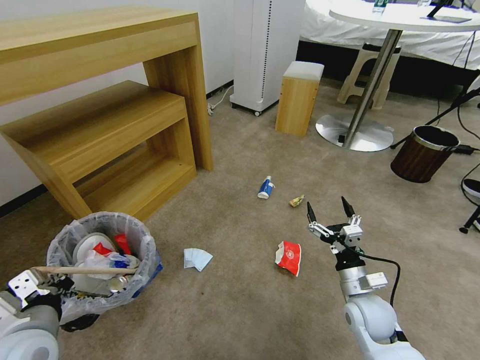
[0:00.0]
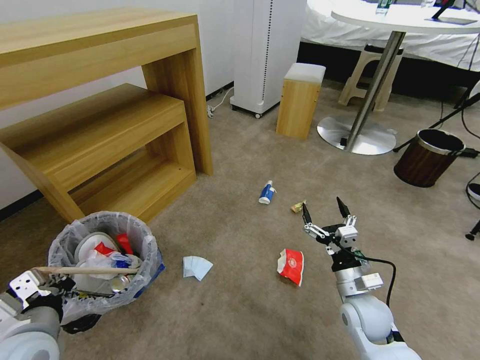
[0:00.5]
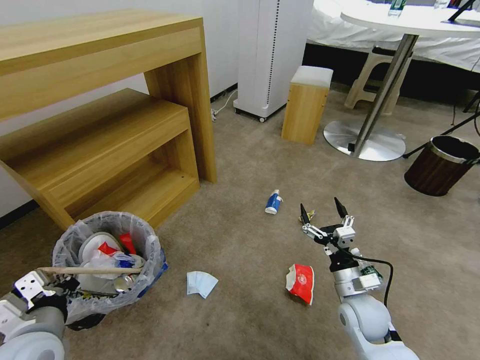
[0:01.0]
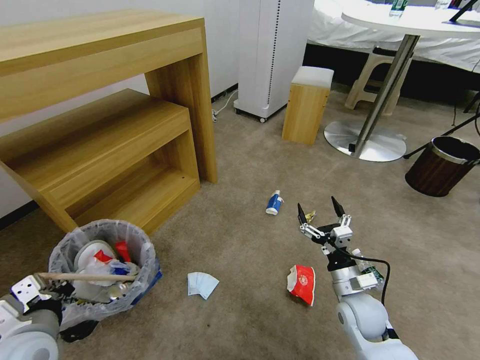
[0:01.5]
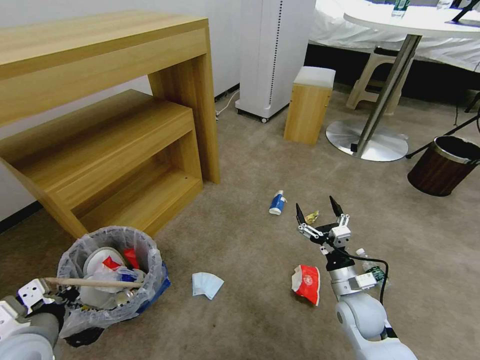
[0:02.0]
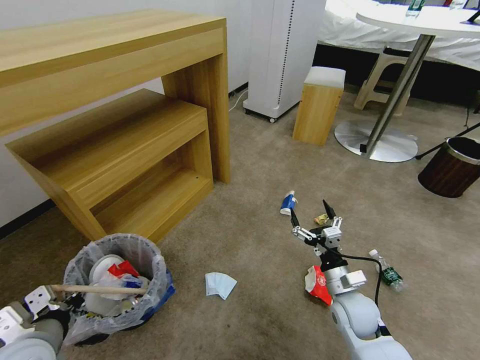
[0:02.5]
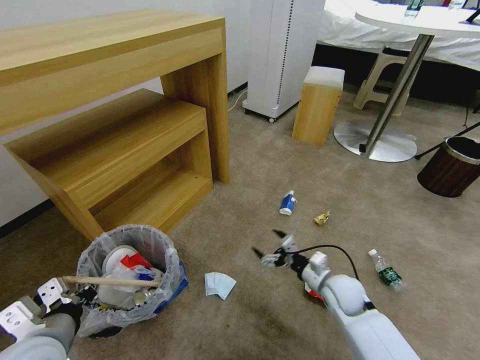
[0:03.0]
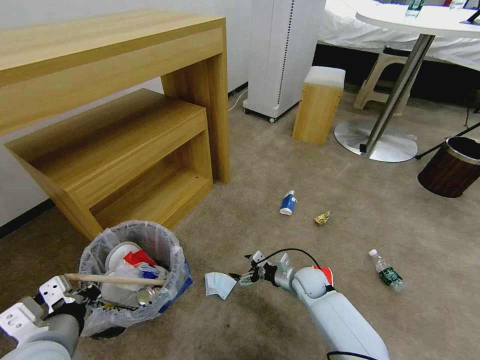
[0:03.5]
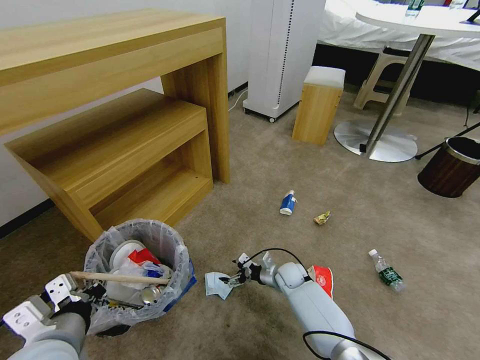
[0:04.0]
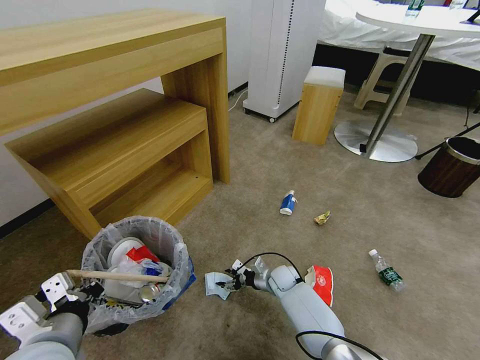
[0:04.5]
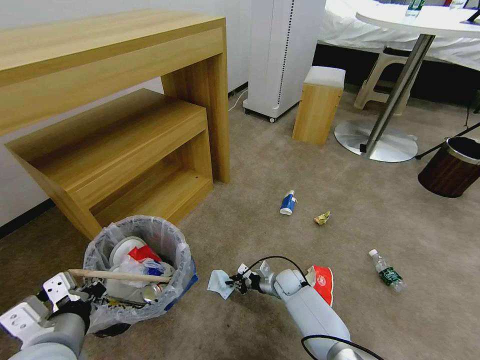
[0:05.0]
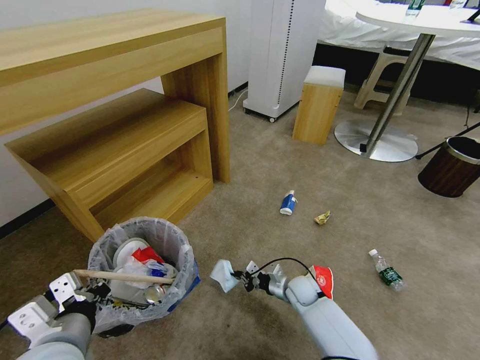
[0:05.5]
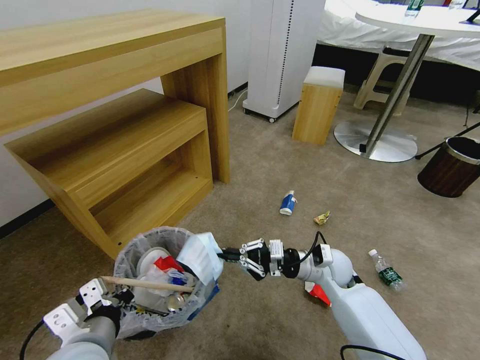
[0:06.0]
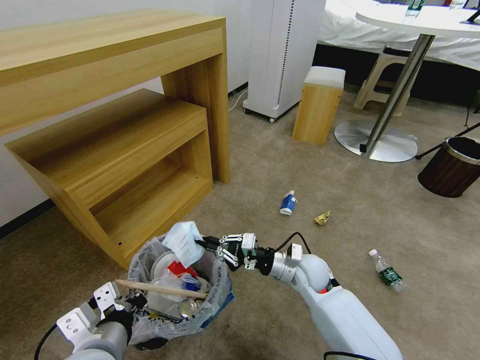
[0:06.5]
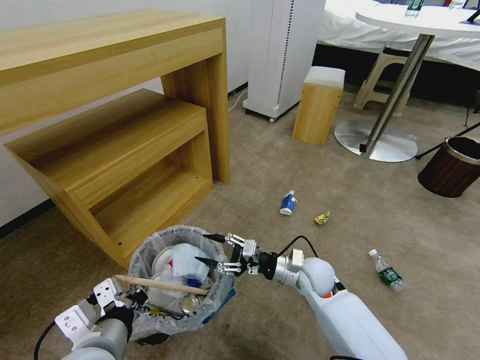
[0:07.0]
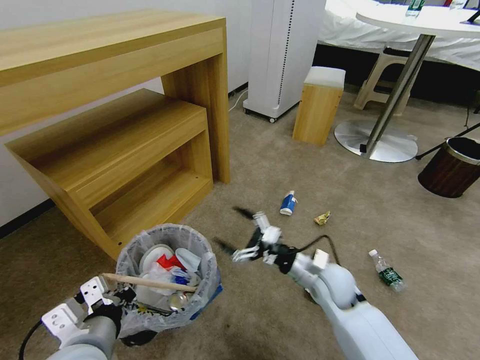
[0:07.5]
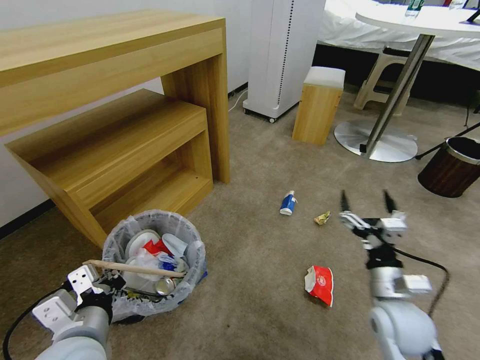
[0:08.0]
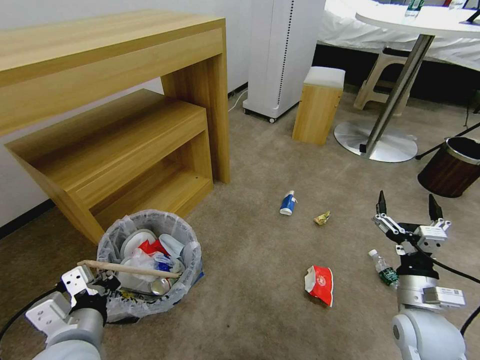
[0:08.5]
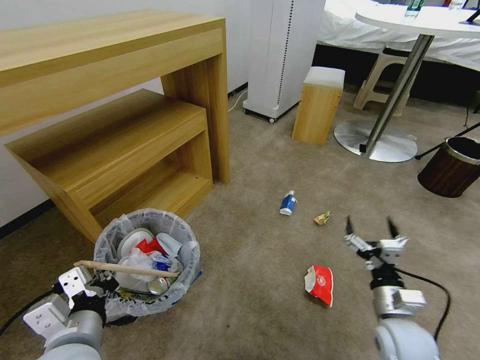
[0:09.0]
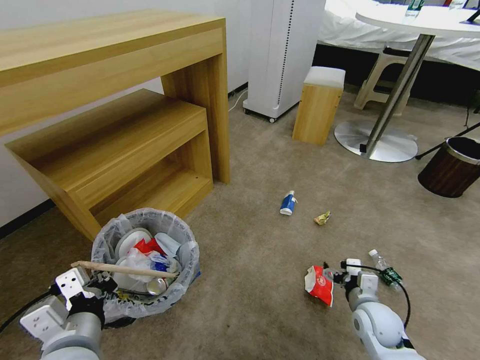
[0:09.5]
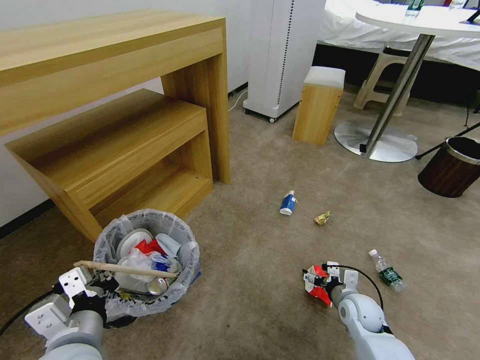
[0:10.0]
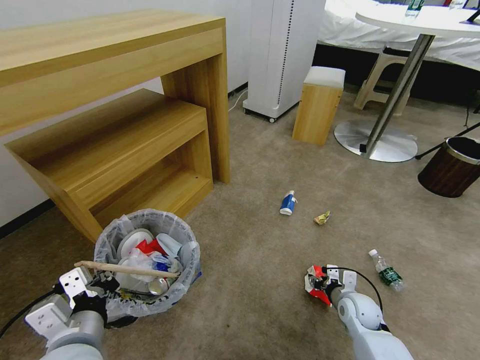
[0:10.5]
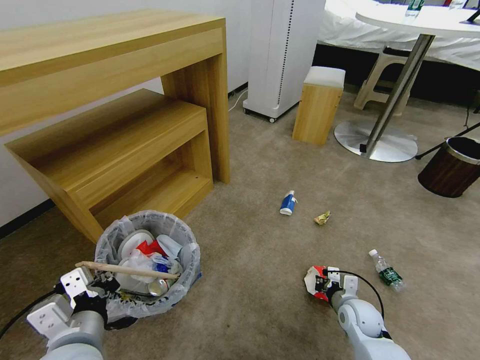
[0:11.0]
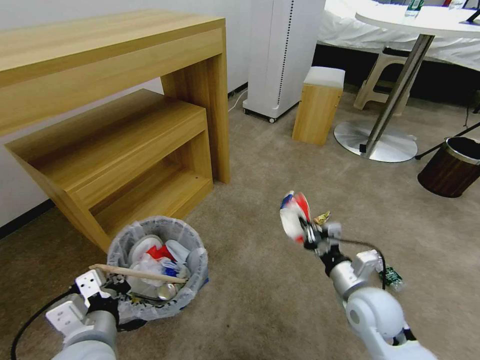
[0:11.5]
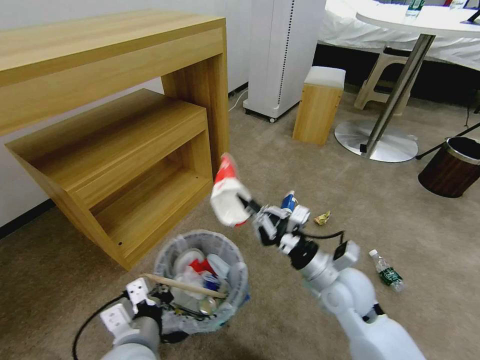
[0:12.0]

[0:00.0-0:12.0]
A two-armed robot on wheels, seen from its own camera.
Task of the whole recording: Pick up the trash bin and place the garbage on the floor into it.
0:02.0 to 0:04.0: The right gripper heads forward, downward and to the left, covering roughly 25 cm; the left gripper heads to the right, covering roughly 5 cm.
0:04.0 to 0:06.0: The right gripper moves upward, about 20 cm, and closes.
0:06.0 to 0:08.0: The right gripper heads backward and to the right, covering roughly 15 cm, and opens its fingers.
0:08.0 to 0:10.0: The right gripper moves downward and forward, approximately 15 cm.
0:10.0 to 0:12.0: The right gripper travels upward and to the left by about 20 cm, and closes up; the left gripper is displaced to the right by roughly 5 cm.

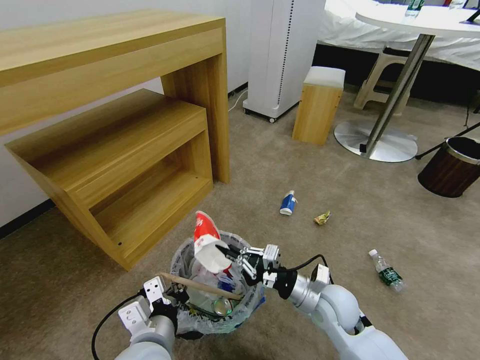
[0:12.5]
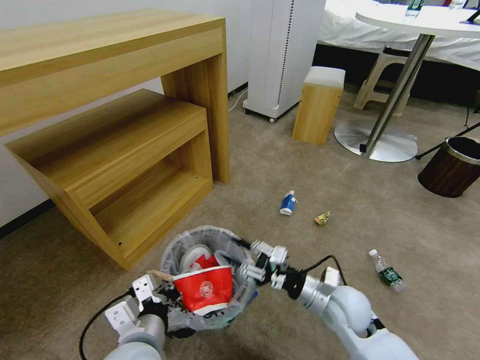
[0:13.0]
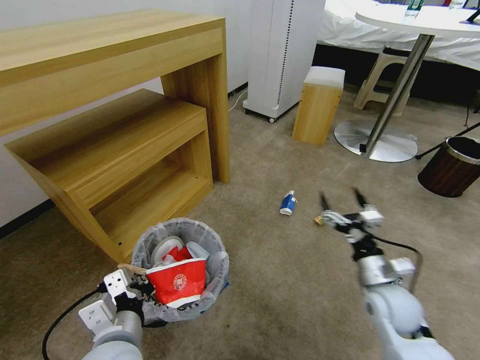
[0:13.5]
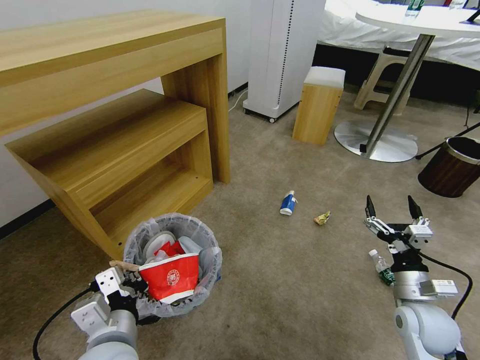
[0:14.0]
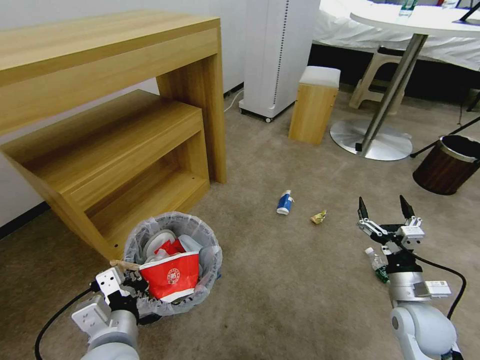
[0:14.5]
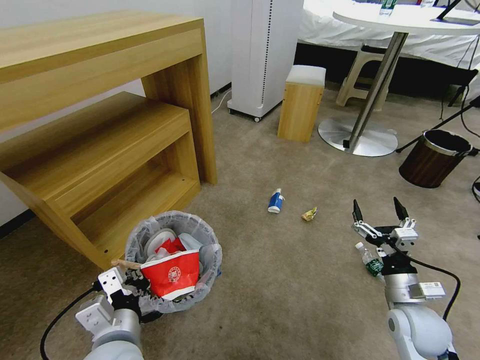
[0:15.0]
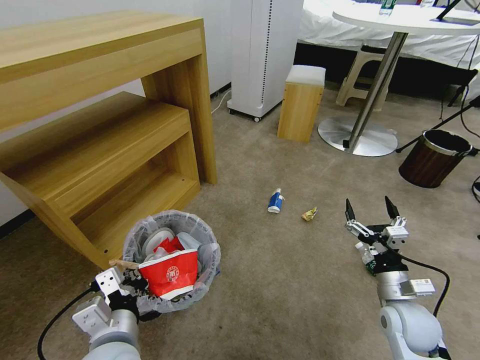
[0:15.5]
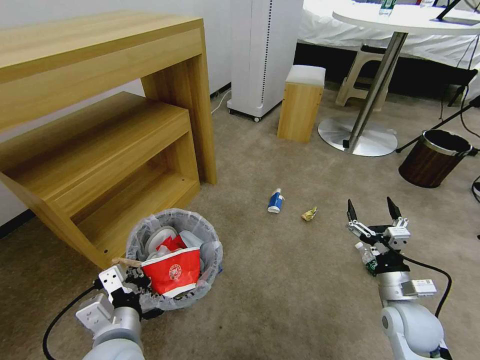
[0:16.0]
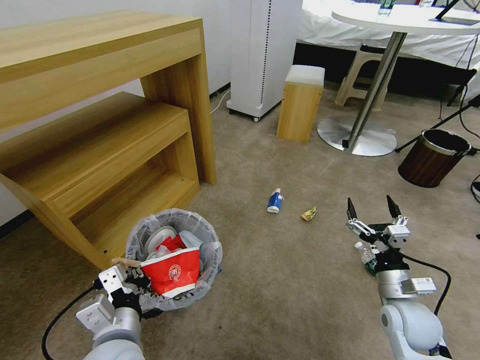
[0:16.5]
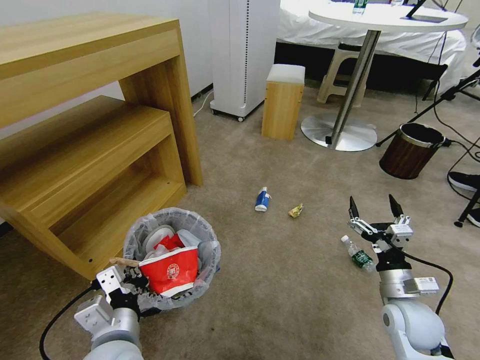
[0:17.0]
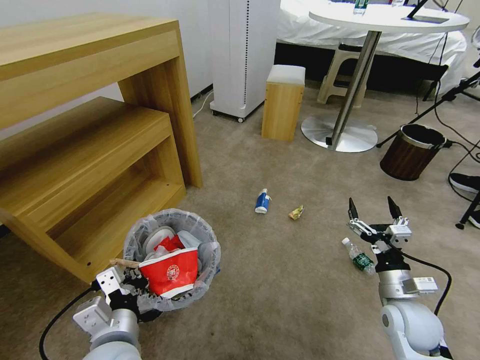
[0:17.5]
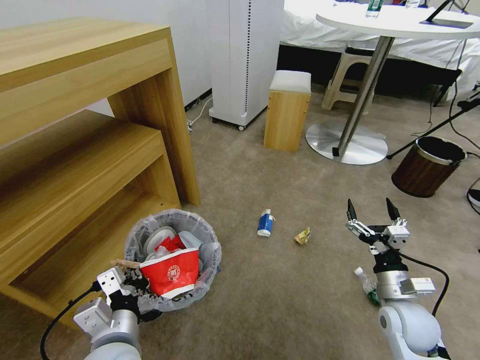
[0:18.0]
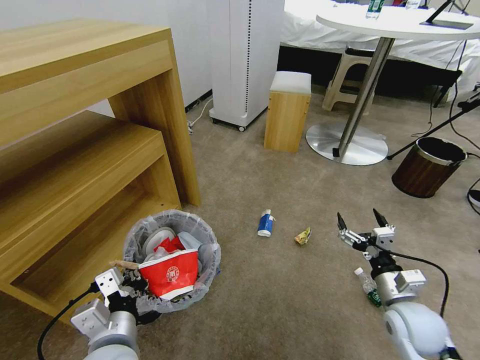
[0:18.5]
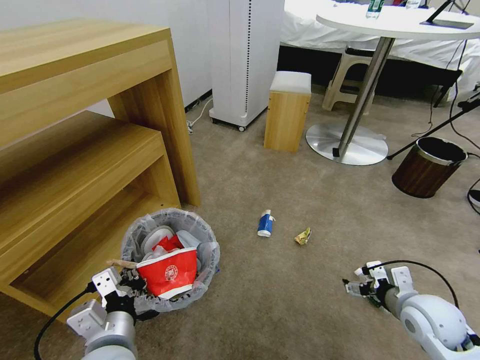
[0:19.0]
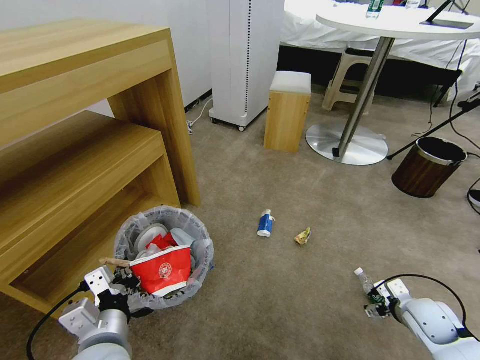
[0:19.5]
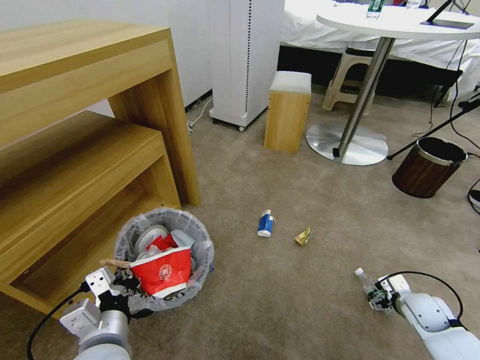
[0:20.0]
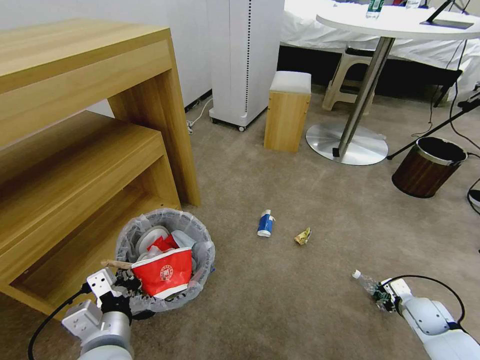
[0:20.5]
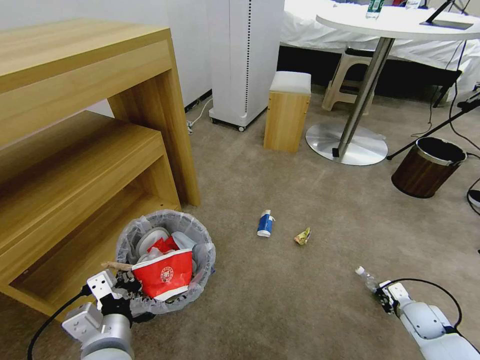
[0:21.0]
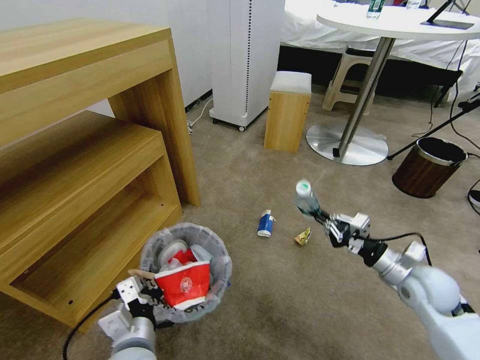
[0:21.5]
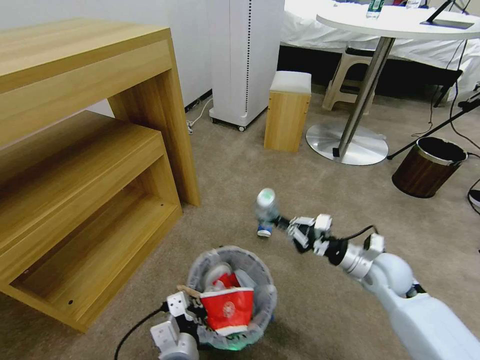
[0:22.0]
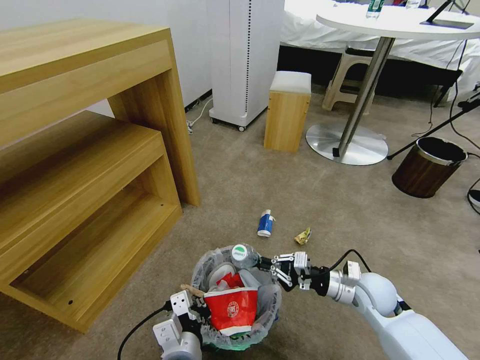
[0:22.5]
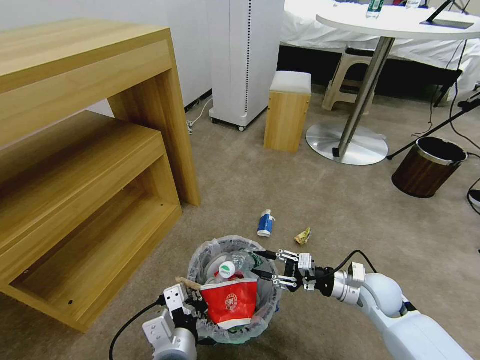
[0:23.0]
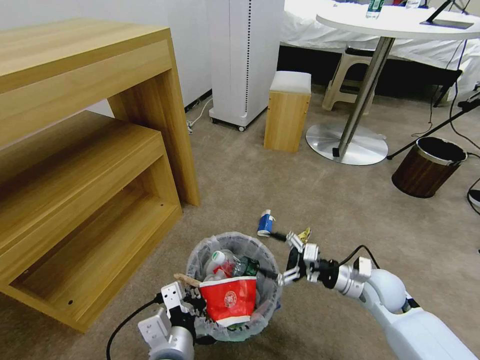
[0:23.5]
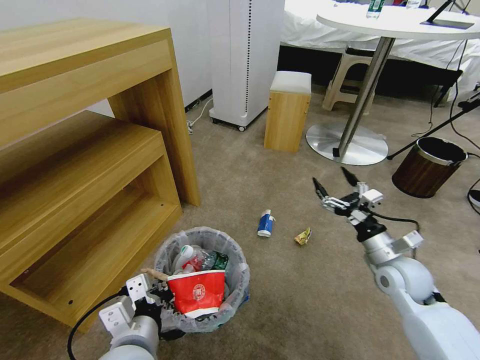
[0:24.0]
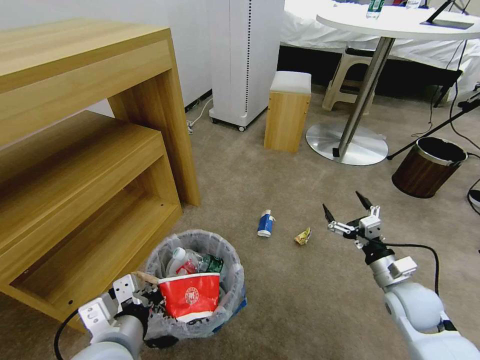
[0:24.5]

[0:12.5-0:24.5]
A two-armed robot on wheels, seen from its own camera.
Task of the whole recording: Pick up the trash bin and place the garbage on the floor into it.
0:12.5 to 0:14.5: The right gripper heads to the right, covering roughly 15 cm, and opens.
0:18.5 to 0:20.5: The right gripper travels to the right and downward by roughly 20 cm.
0:20.5 to 0:22.5: The left gripper travels to the right by approximately 10 cm, while the right gripper heads to the left and upward, covering some 20 cm, and closes up.
0:22.5 to 0:24.5: The right gripper goes about 5 cm to the right, and opens its fingers, while the left gripper travels to the left and upward by about 15 cm.

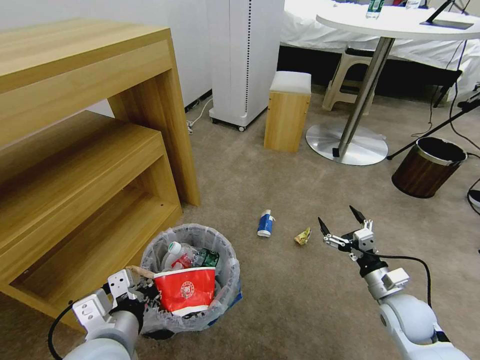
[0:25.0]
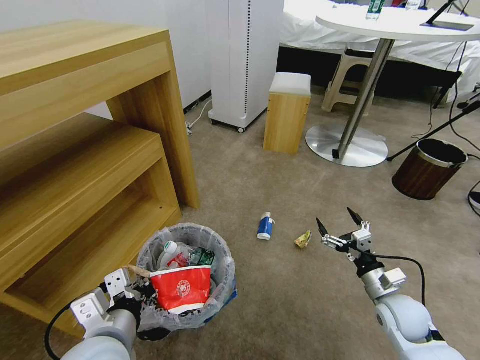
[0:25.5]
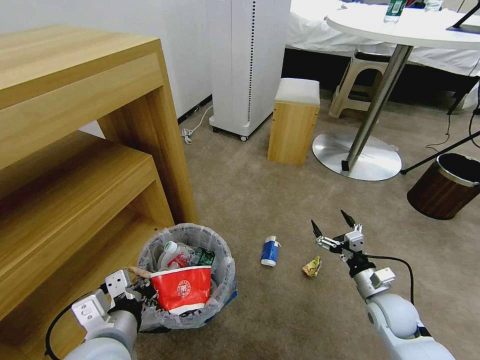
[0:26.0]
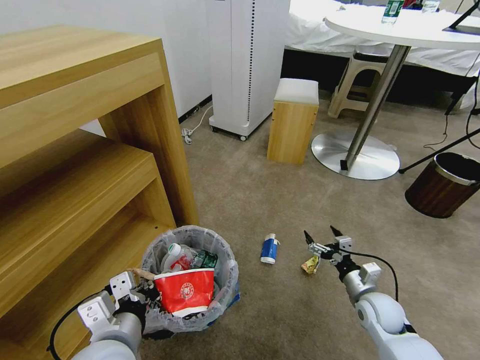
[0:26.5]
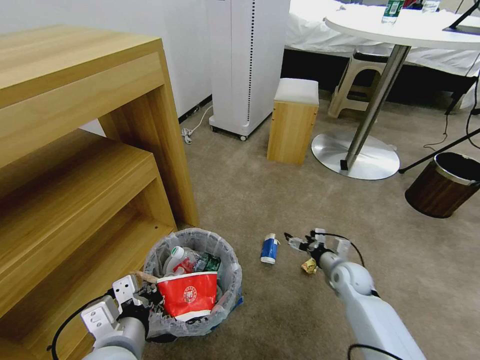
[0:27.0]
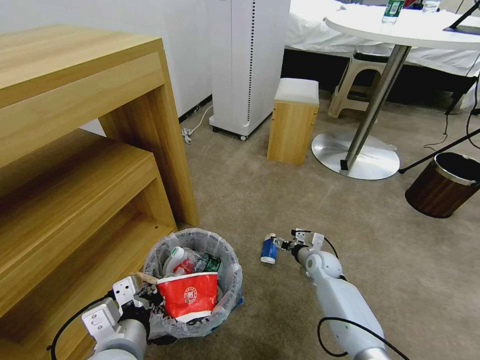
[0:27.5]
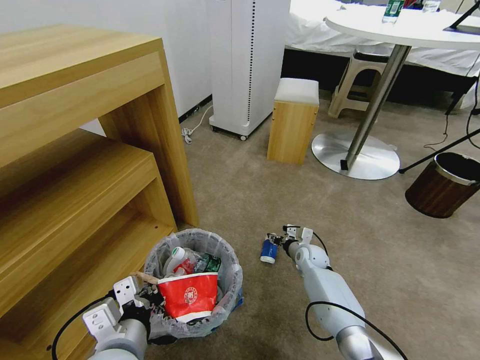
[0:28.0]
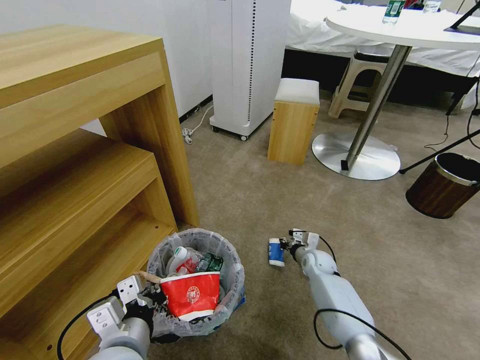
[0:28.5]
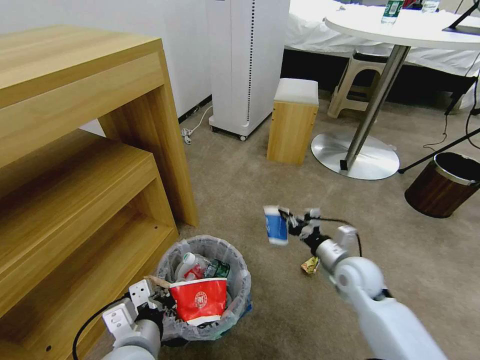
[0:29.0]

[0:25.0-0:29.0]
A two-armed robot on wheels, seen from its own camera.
Task of the whole recording: Pick up the trash bin and place the garbage on the floor into it.
0:25.0 to 0:27.0: The right gripper moves forward, downward and to the left, roughly 15 cm.
0:27.0 to 0:29.0: The right gripper heads upward, covering some 10 cm, and closes up.
